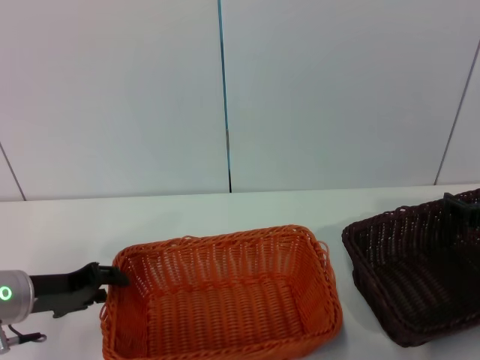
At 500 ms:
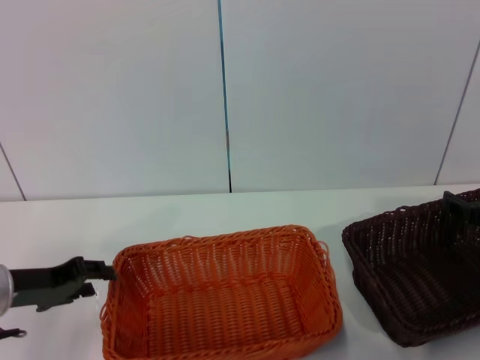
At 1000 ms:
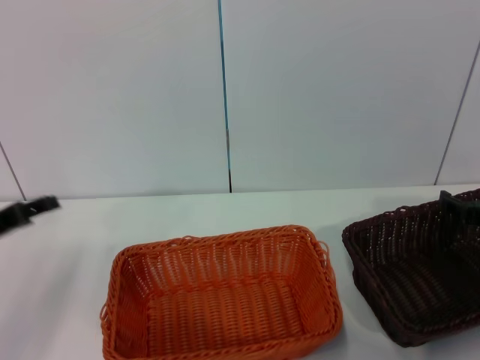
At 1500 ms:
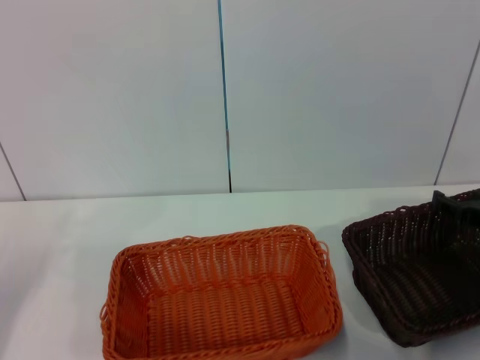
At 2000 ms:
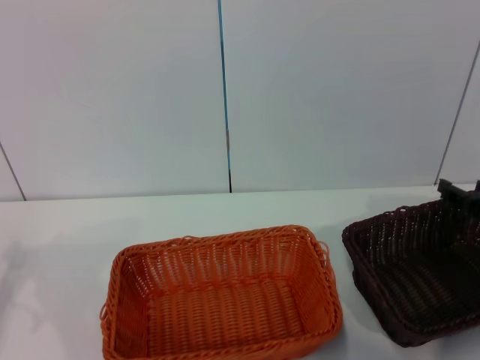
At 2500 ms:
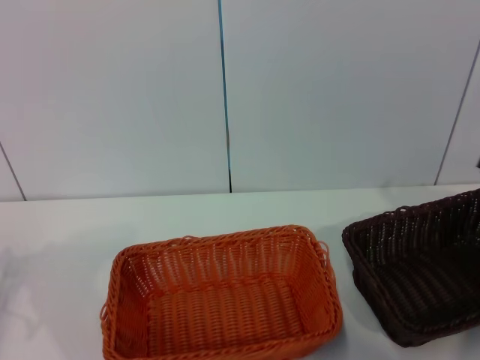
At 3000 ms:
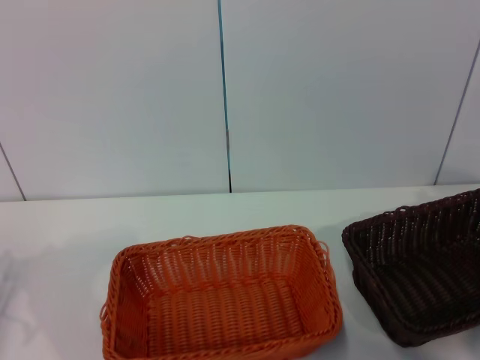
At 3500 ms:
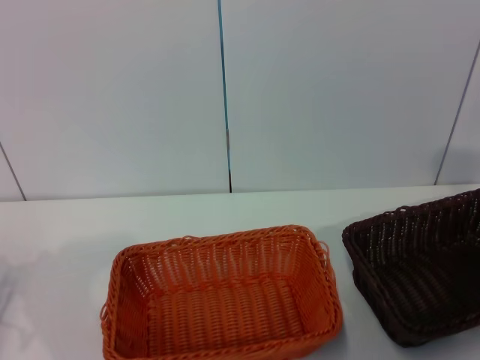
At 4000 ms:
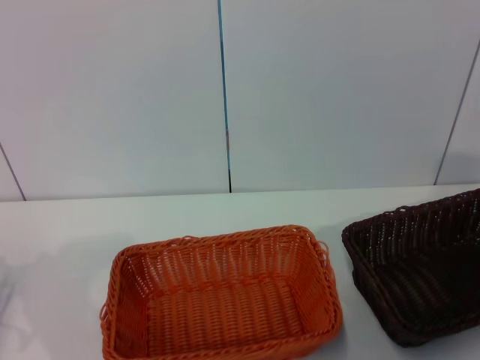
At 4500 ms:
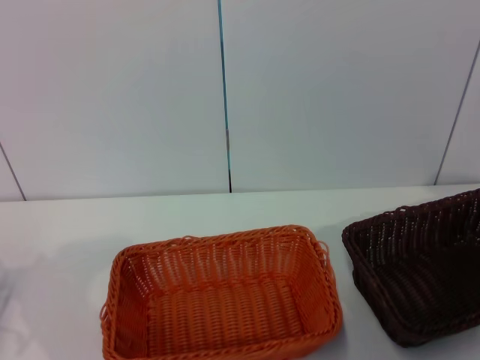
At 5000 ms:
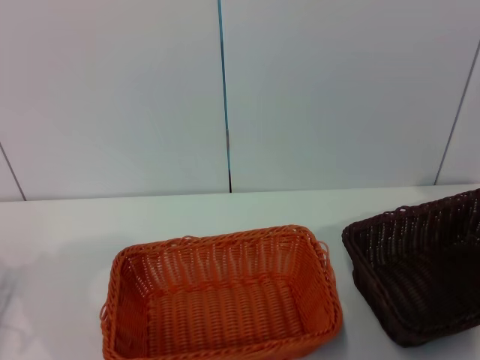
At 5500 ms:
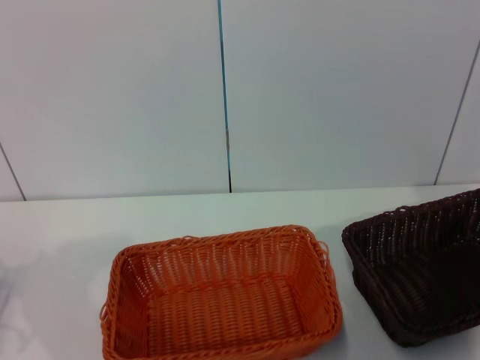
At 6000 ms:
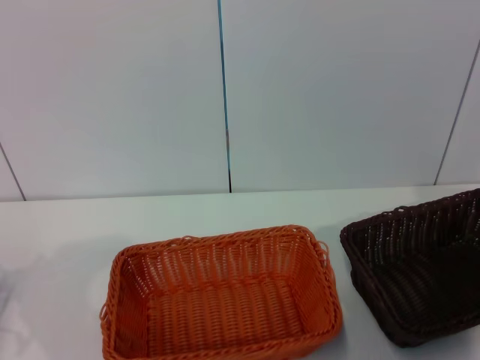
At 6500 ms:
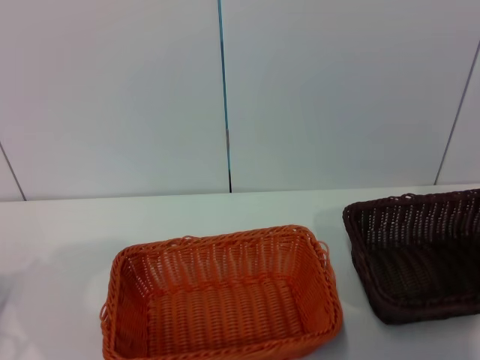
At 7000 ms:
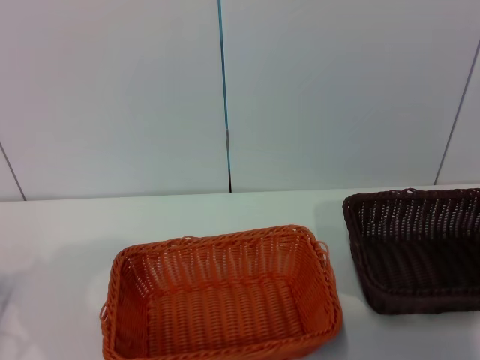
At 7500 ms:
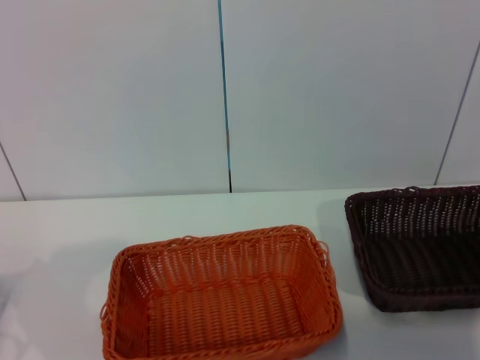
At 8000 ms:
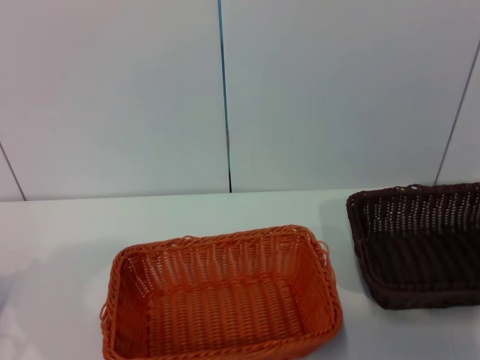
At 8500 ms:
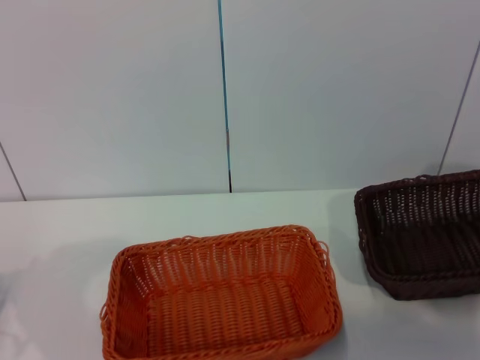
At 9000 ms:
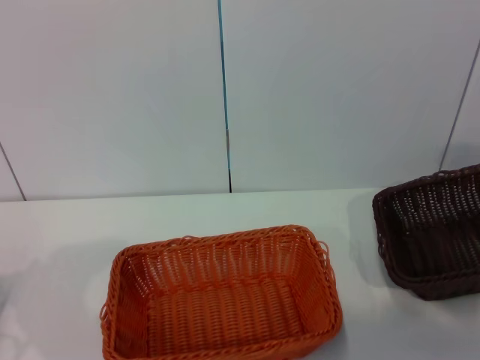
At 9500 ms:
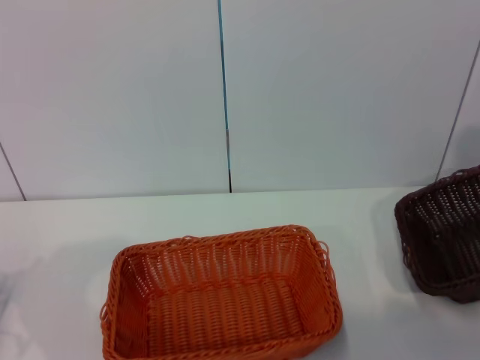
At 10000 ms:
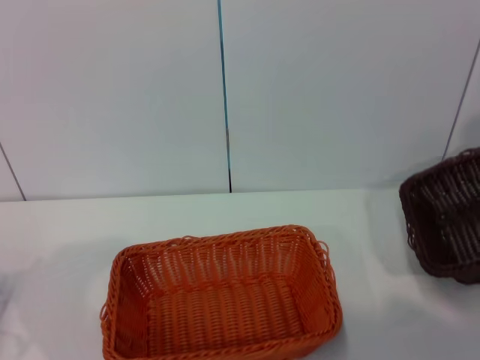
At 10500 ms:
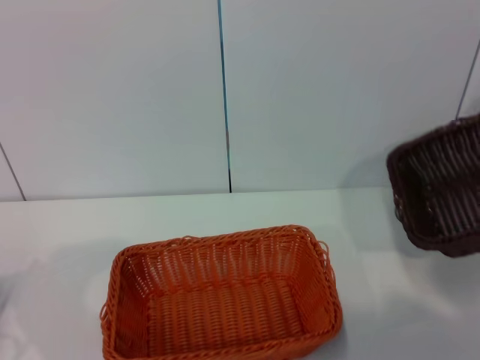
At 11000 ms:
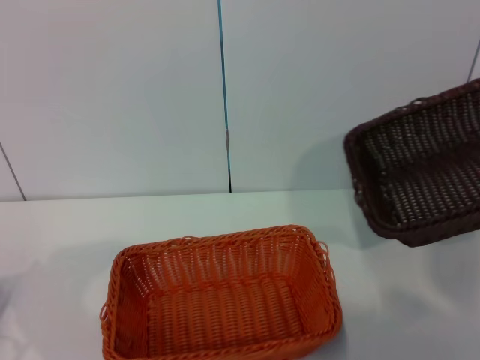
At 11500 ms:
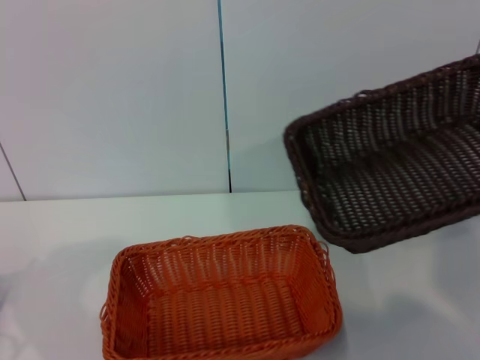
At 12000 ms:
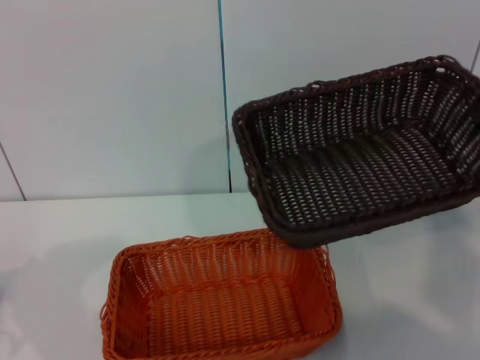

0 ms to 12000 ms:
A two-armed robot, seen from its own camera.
Step, 0 ms to 9000 ms: Pick up the dark basket with the right gripper.
0 ms to 2000 ms: The left gripper goes some 10 cm to the left, and opens.
2000 ms to 4000 ms: The right gripper moves to the right and upward, about 10 cm.
6000 ms to 8000 ms: The right gripper closes up.
8000 ms to 10000 ms: The right gripper goes approximately 15 cm upward.
10000 ms to 12000 ms: The right gripper moves to the left, some 10 cm.

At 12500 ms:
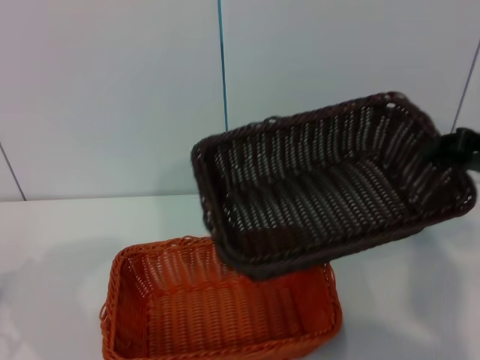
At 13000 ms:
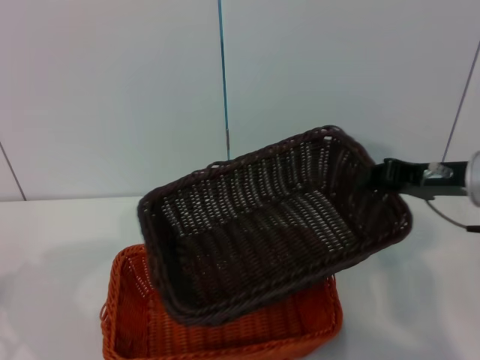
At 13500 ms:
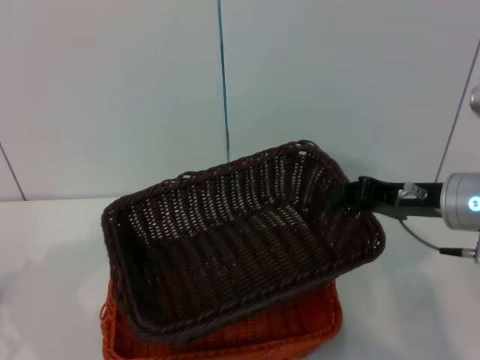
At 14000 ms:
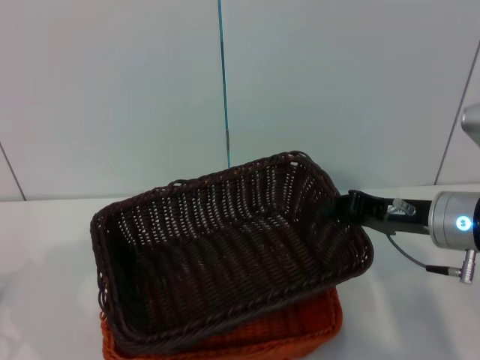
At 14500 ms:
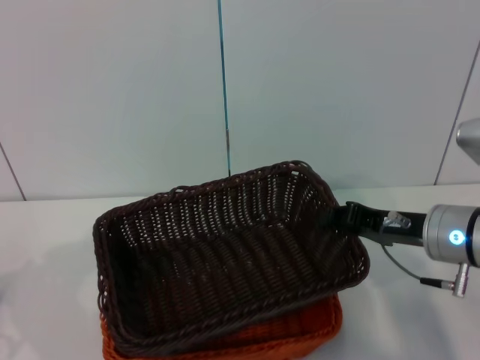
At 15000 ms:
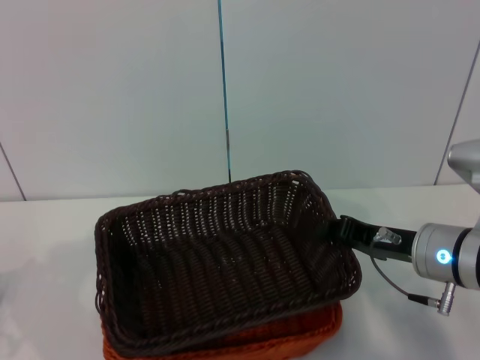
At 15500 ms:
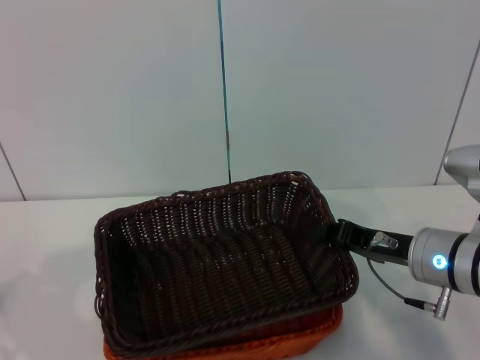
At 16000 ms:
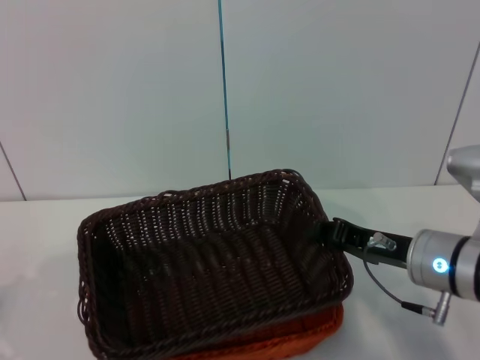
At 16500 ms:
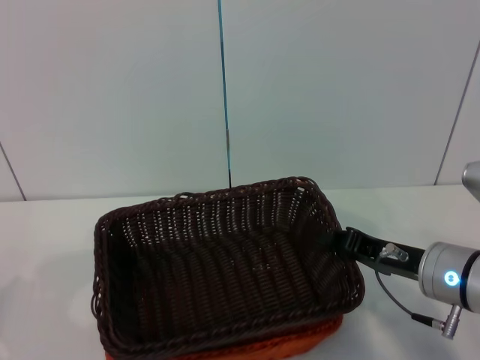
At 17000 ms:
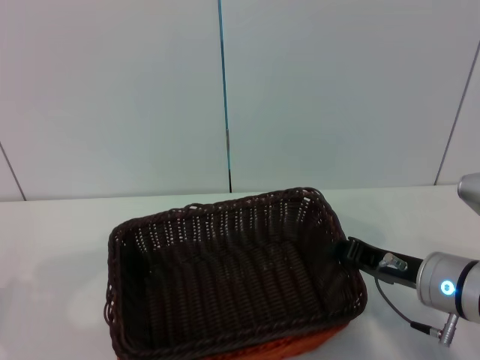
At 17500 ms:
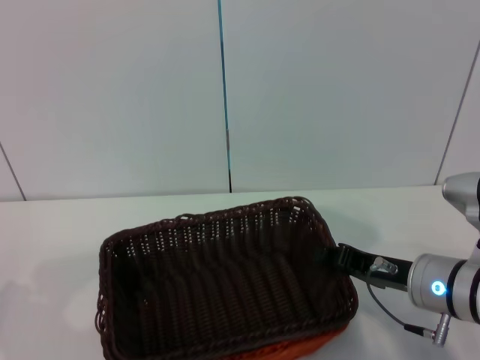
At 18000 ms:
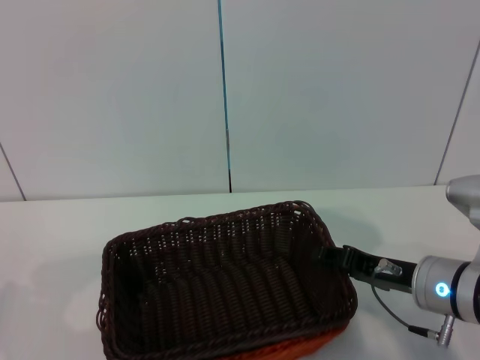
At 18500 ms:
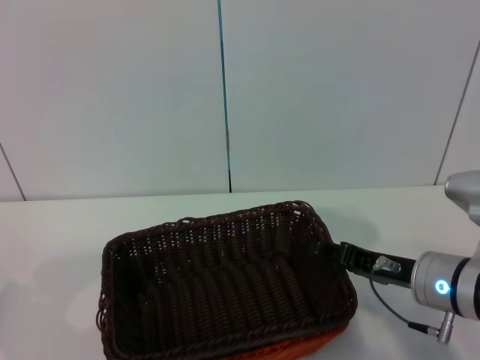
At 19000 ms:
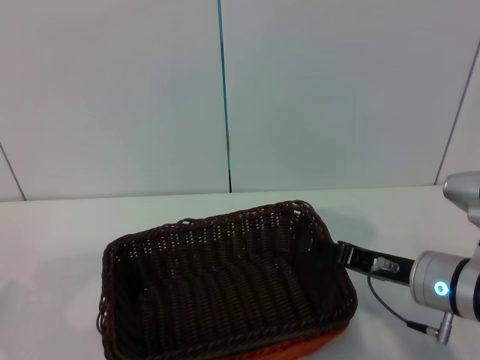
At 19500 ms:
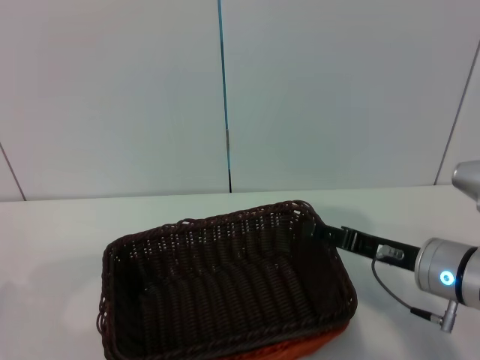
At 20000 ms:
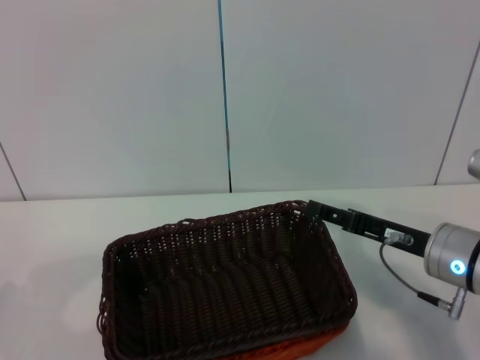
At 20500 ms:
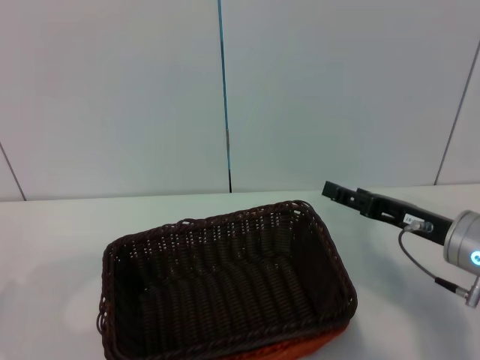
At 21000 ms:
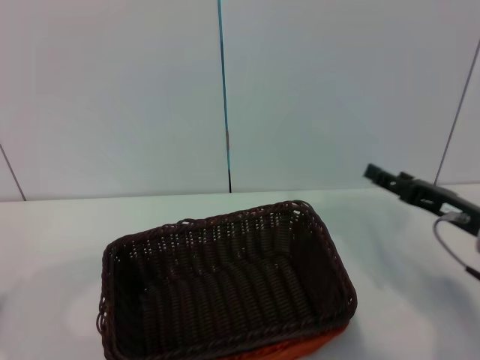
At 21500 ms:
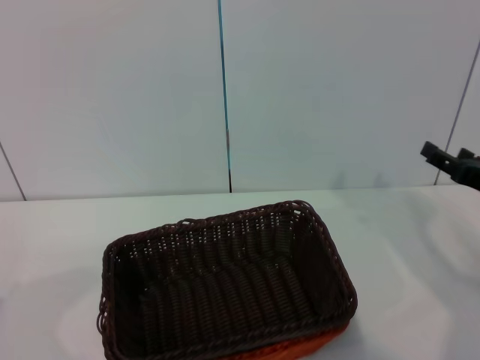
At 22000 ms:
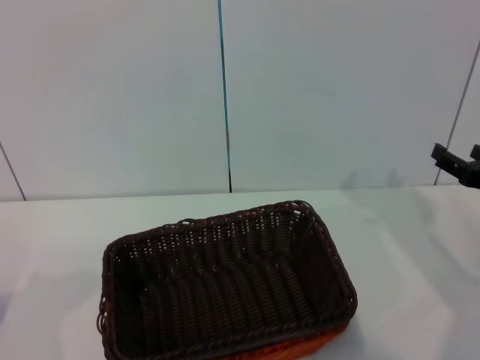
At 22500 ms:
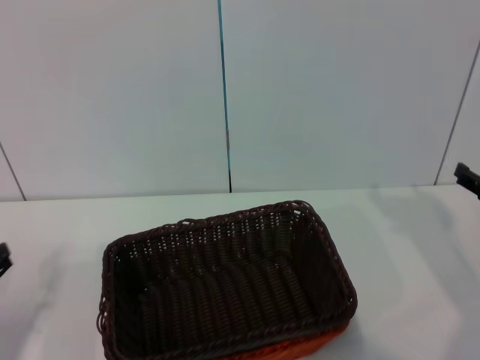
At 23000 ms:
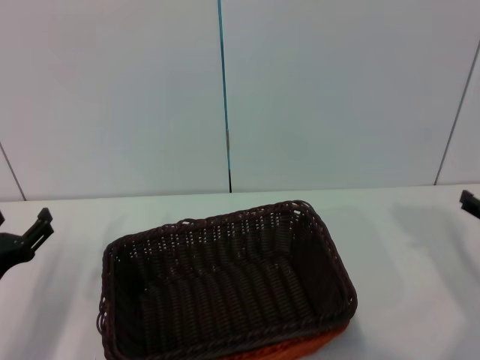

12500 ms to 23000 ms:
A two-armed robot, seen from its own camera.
Step, 12500 ms to 17500 ms: Place the dark basket on the light basket with the right gripper.
12500 ms to 14500 ms: The right gripper shifts roughly 10 cm to the left and downward.
14500 ms to 16500 ms: The grippers move only a little.
16500 ms to 19000 ms: The right gripper opens.
19000 ms to 21000 ms: The right gripper heads to the right, covering some 5 cm.
21000 ms to 23000 ms: The two grippers go about 5 cm to the right.

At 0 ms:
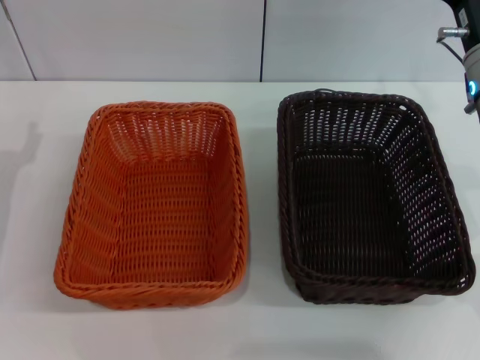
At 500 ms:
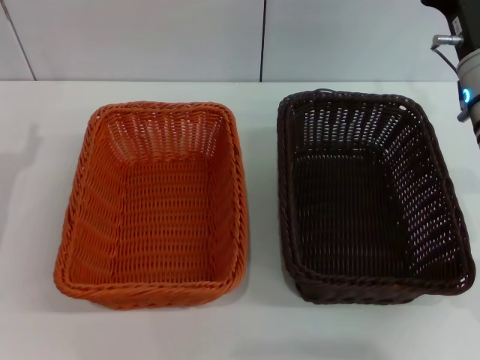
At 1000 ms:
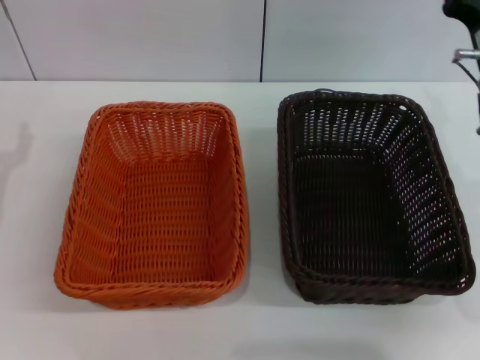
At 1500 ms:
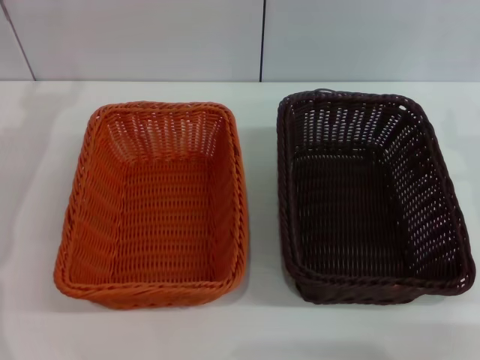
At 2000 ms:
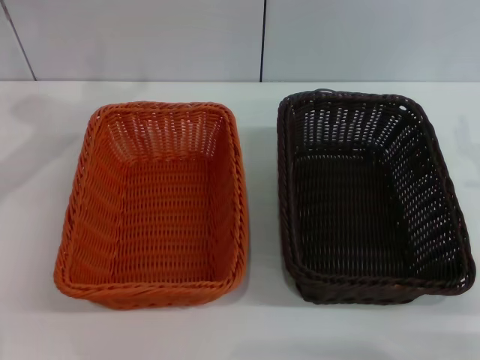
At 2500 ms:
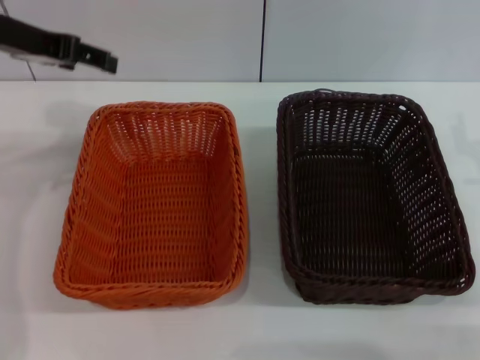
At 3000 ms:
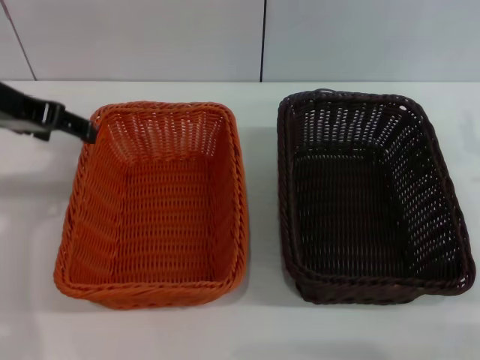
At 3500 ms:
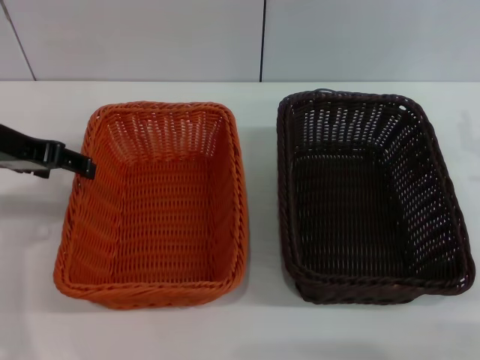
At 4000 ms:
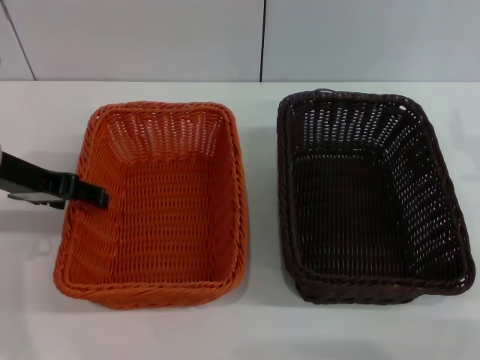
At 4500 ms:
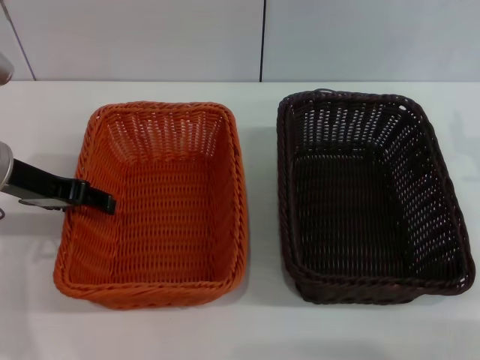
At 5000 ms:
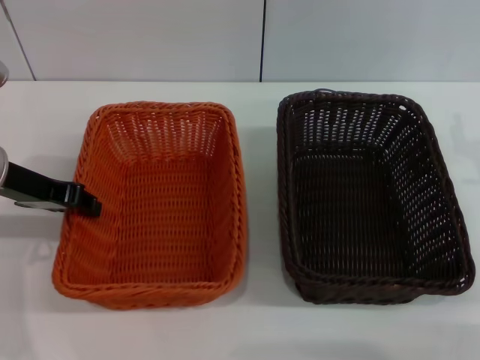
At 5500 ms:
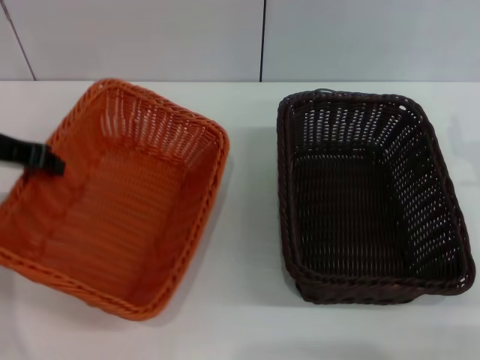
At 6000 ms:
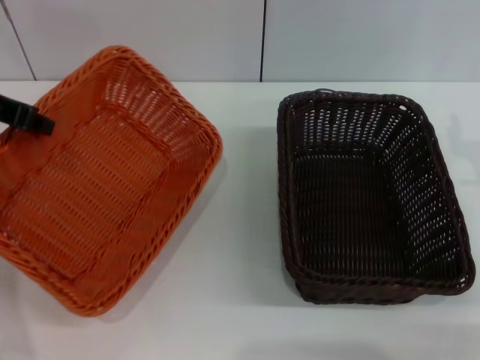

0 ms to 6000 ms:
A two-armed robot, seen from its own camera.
Step, 0 ms to 5500 ms: Pick up the light basket with the left gripper.
0 ms to 2000 ms: The right gripper travels to the right, backward and downward by some 10 cm.
2000 ms to 4000 ms: The left gripper goes approximately 10 cm backward and downward.
4000 ms to 6000 ms: The left gripper travels upward by roughly 5 cm, and closes its fingers.
